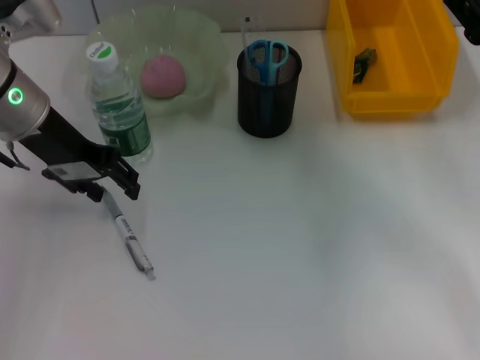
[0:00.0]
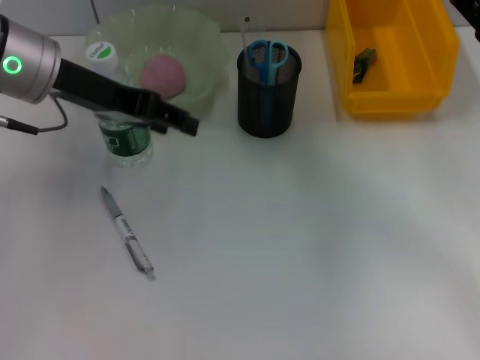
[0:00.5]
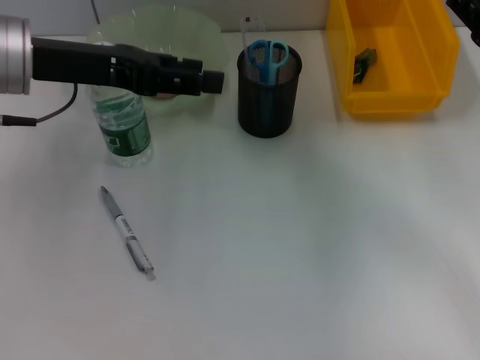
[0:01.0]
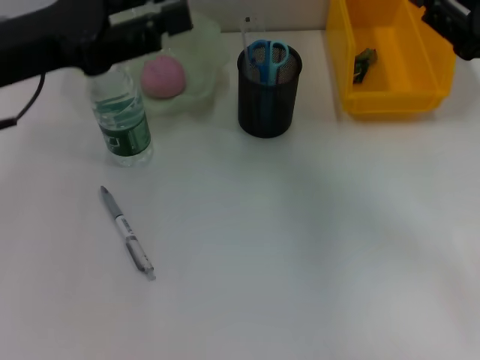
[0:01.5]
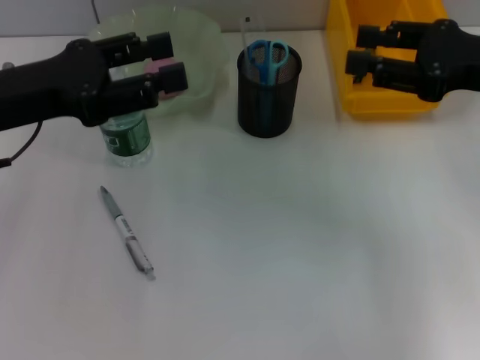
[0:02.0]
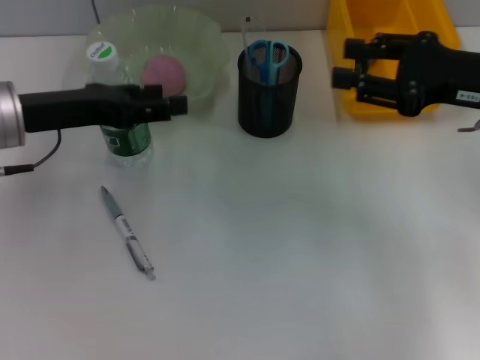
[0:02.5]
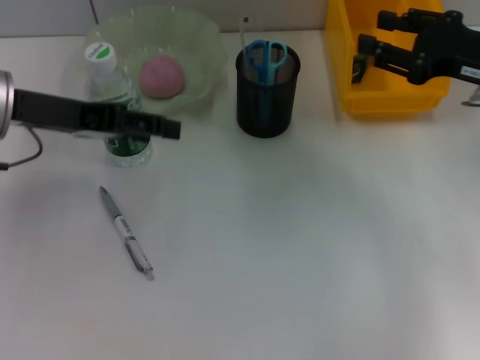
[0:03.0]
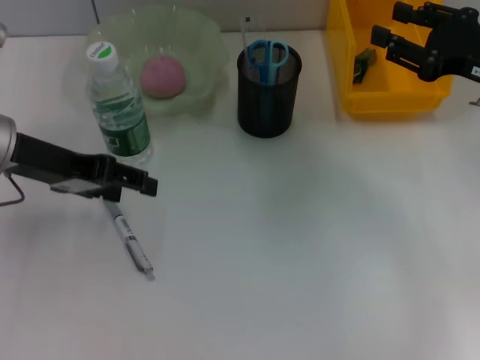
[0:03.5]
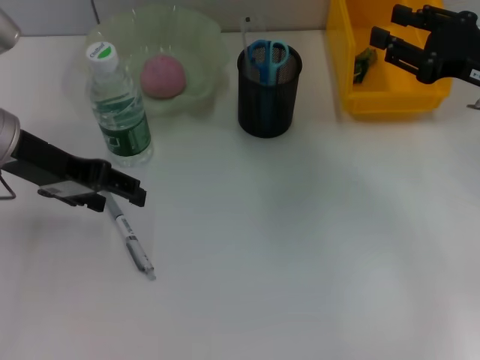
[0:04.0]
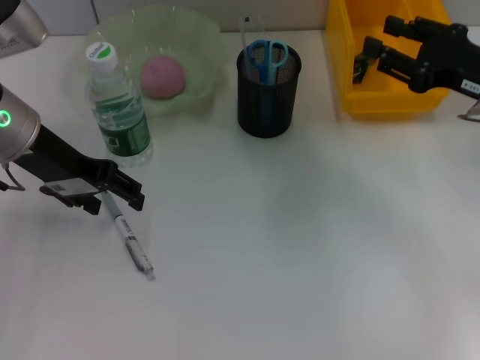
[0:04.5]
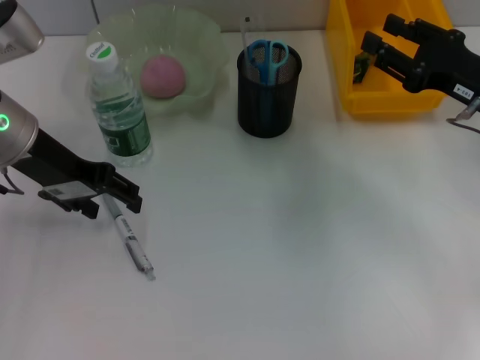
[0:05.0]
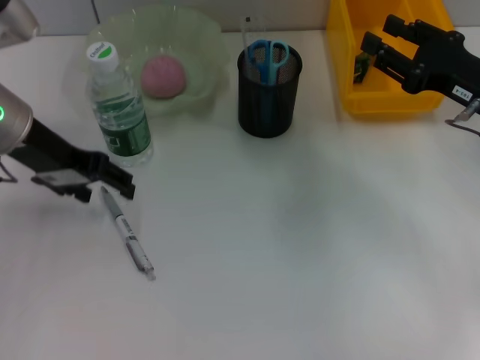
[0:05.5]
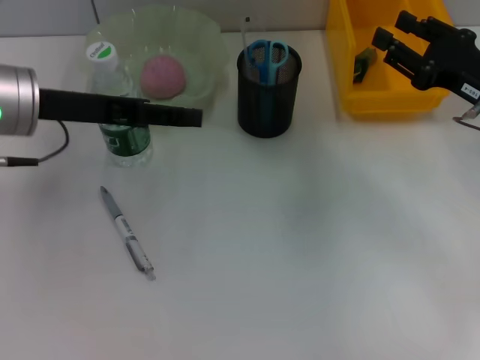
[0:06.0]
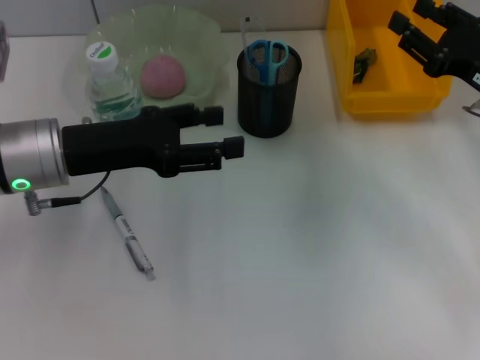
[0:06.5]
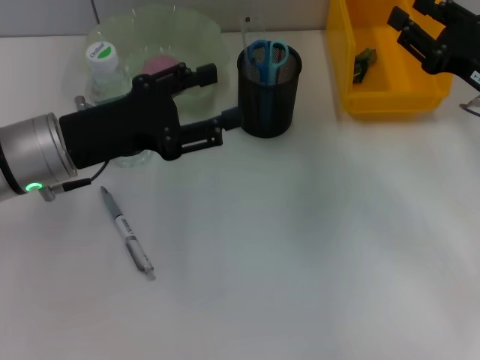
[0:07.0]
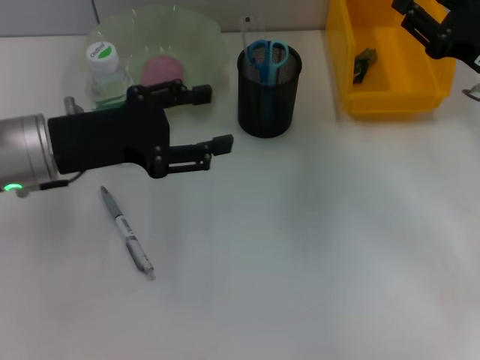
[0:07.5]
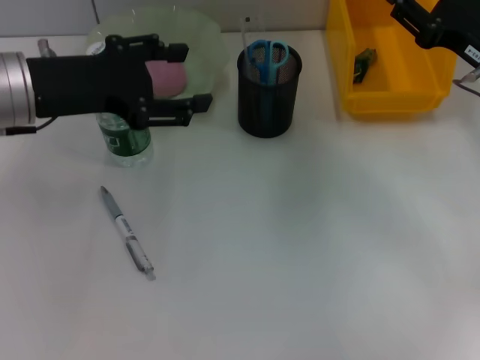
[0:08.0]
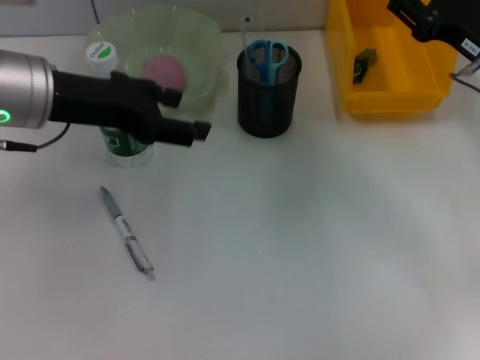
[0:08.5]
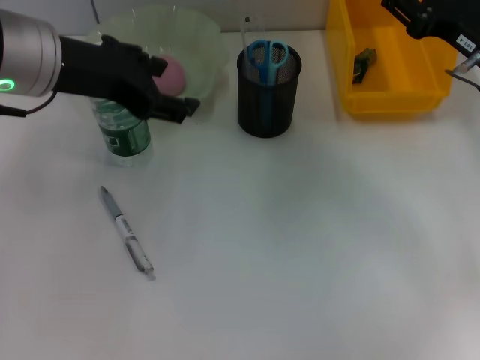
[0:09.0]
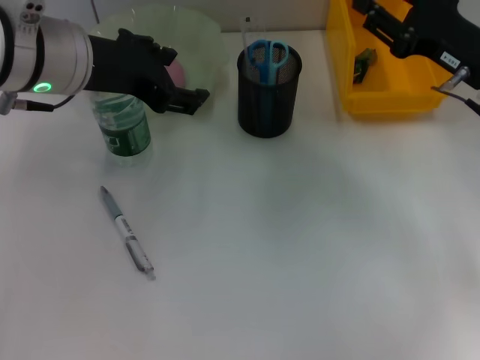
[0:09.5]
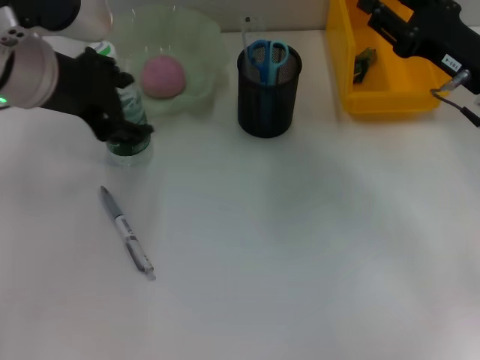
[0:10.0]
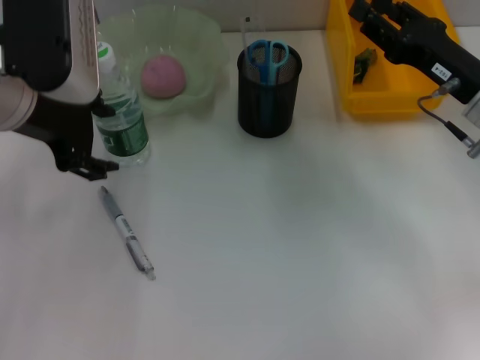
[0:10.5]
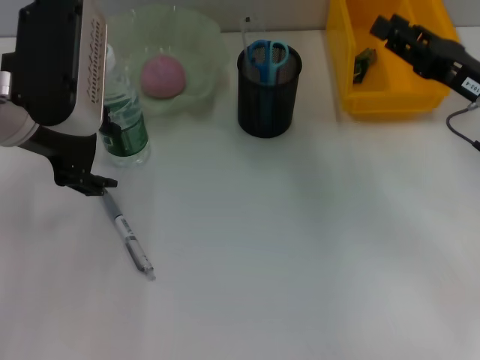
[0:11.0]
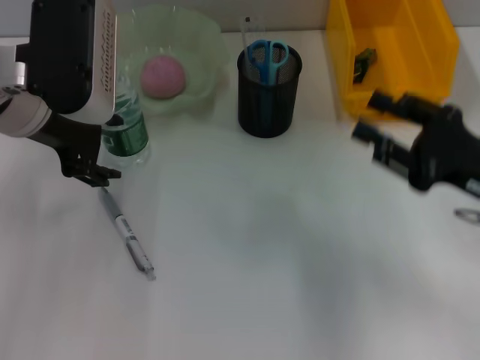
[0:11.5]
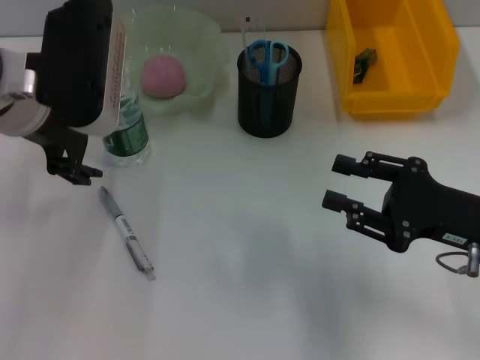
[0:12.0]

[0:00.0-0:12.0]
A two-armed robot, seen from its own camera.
0:00.0 to 0:02.0: The right gripper moves upward, roughly 10 cm; the left gripper heads backward, covering approximately 10 cm.
0:02.0 to 0:04.0: The right gripper shifts by about 5 cm.
0:08.0 to 0:10.0: The left gripper shifts by about 5 cm.
0:10.0 to 0:12.0: The right gripper moves backward, roughly 10 cm.

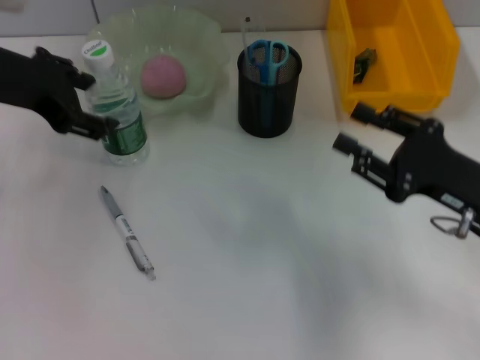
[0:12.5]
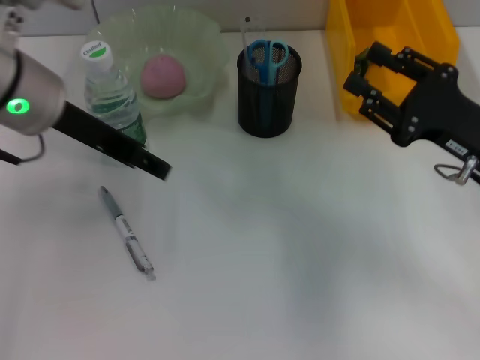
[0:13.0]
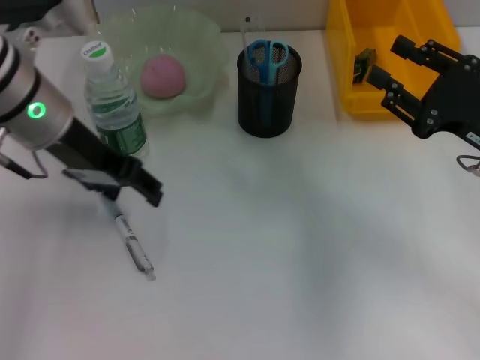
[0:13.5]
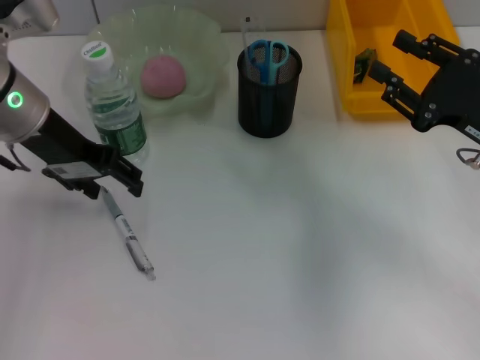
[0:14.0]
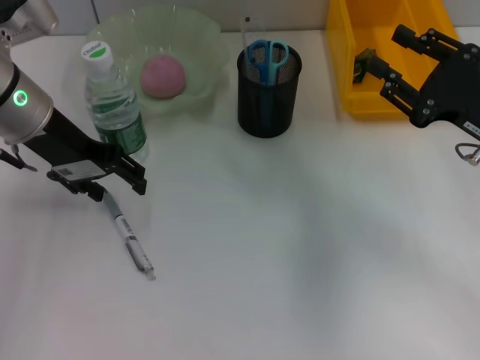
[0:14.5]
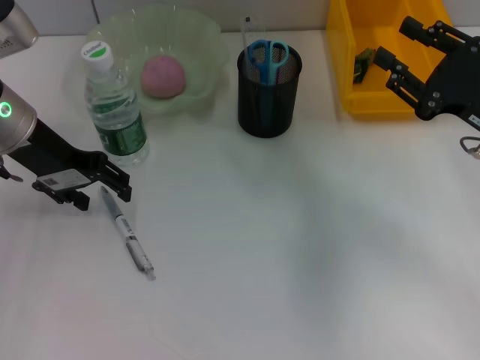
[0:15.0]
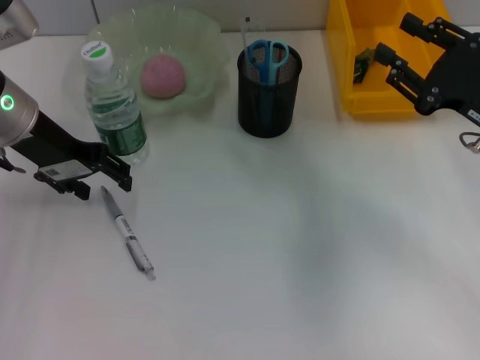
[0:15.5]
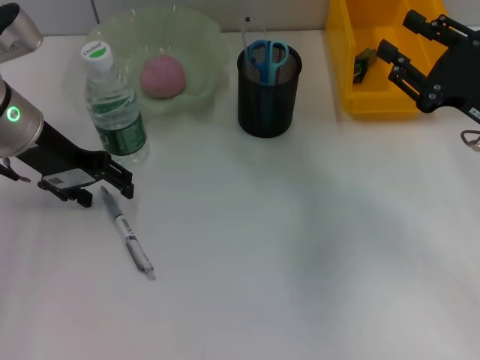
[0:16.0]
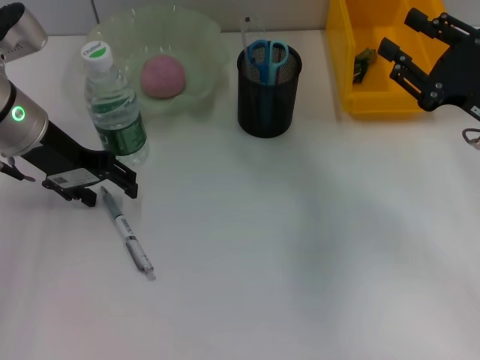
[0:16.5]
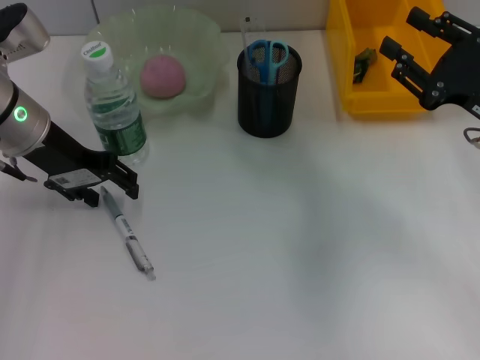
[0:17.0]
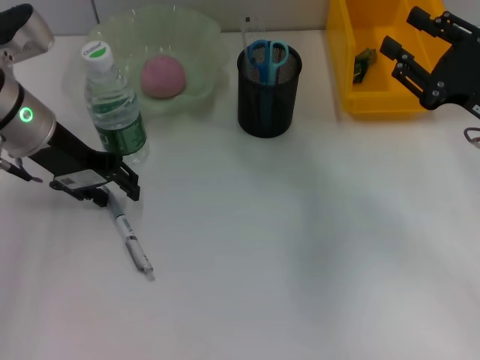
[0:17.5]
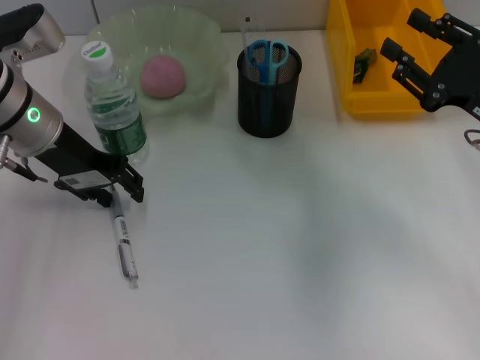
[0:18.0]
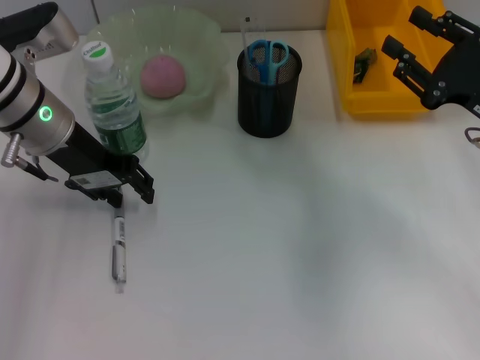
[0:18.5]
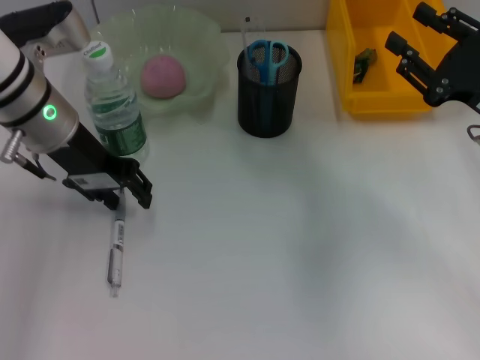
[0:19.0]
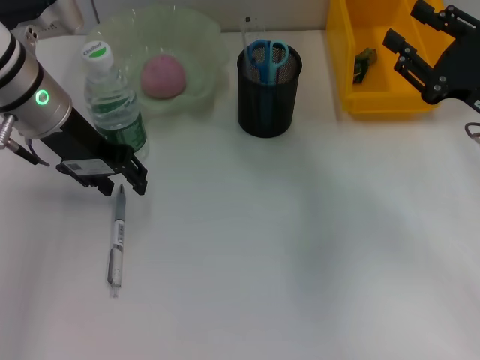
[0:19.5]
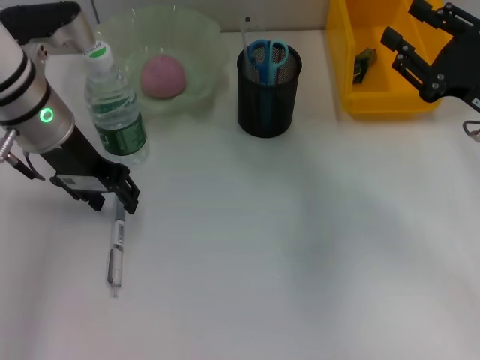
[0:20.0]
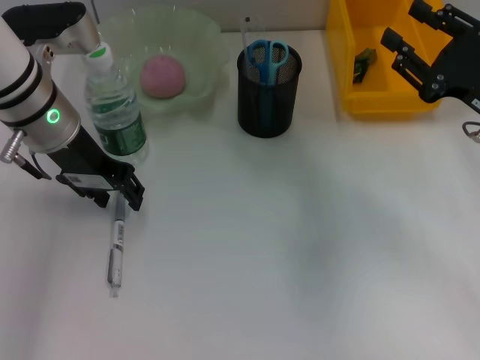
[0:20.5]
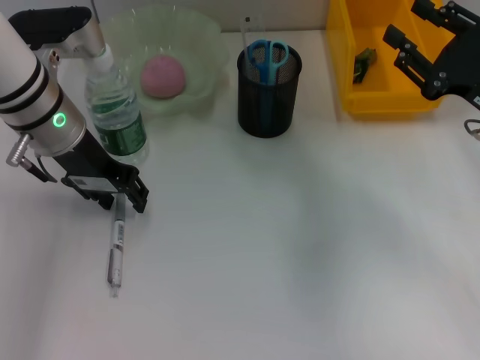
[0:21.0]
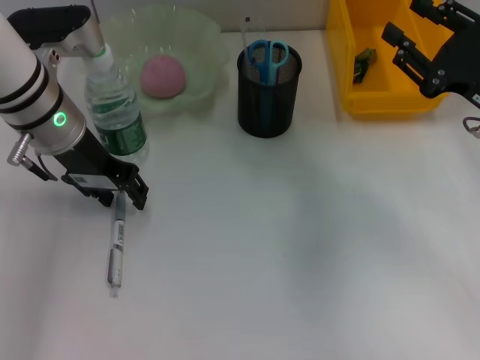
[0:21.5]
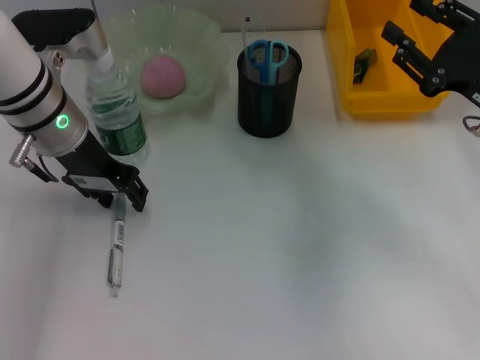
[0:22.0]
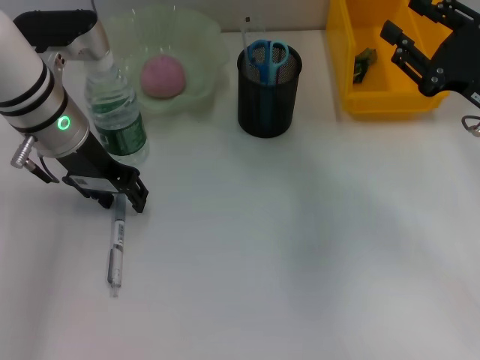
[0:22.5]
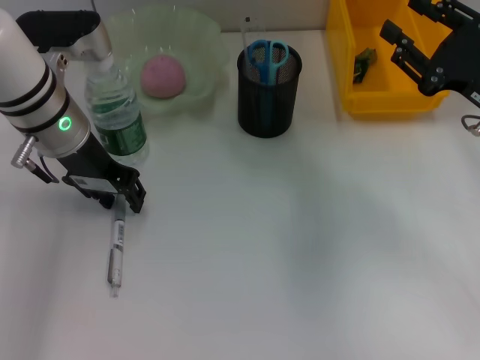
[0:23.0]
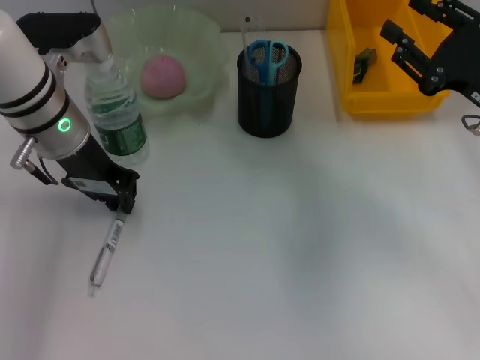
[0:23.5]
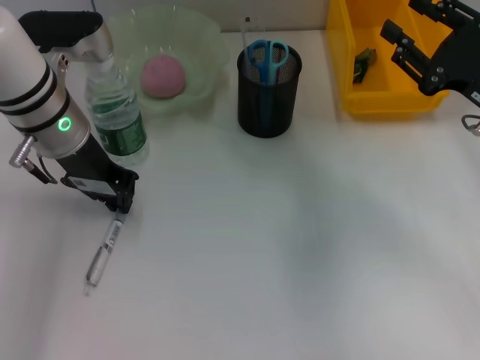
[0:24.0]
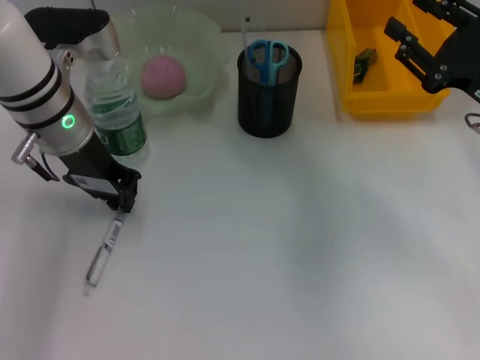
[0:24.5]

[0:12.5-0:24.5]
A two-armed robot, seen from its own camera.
0:12.5 to 0:14.5: The left gripper goes roughly 5 cm downward, while the right gripper ends up some 5 cm from where it was.
0:14.5 to 0:20.5: The grippers move only a little.
0:20.5 to 0:22.5: The two grippers keep their place.
0:22.5 to 0:24.5: The left gripper closes up.

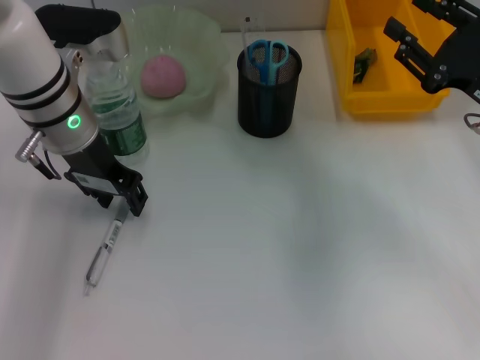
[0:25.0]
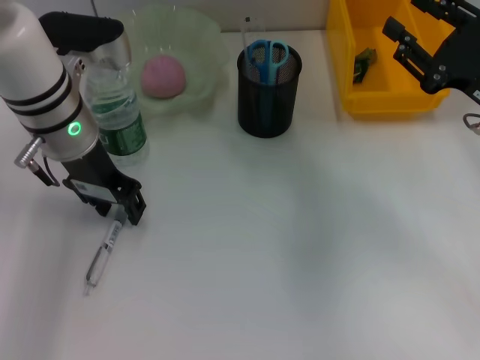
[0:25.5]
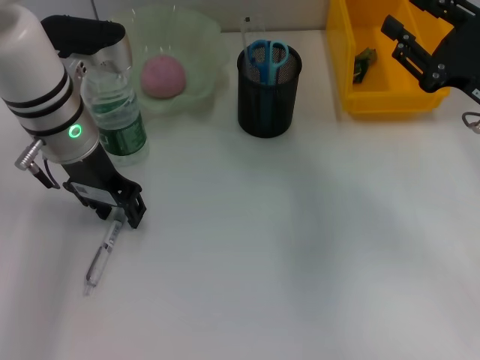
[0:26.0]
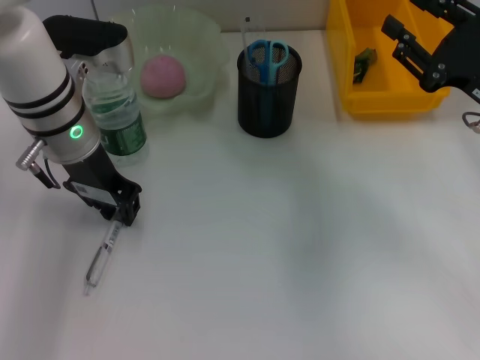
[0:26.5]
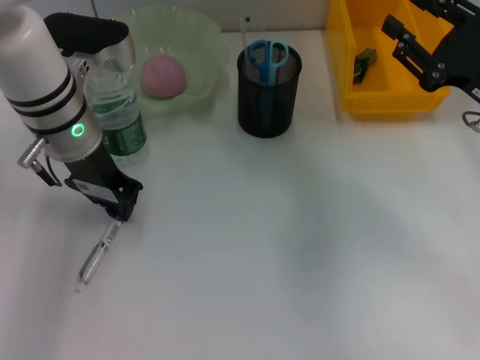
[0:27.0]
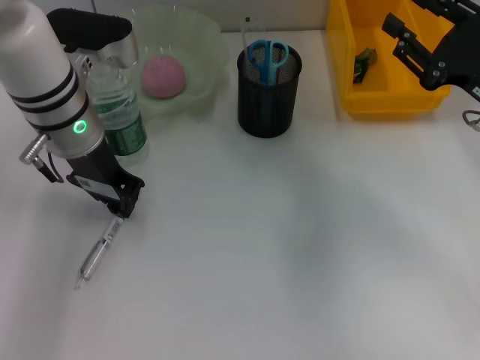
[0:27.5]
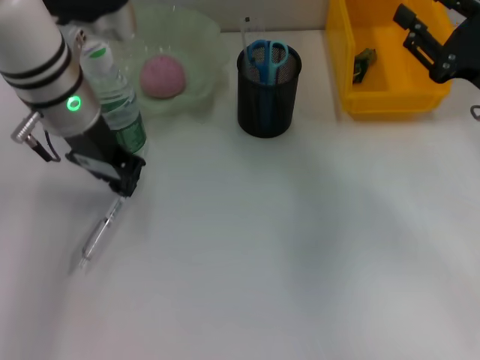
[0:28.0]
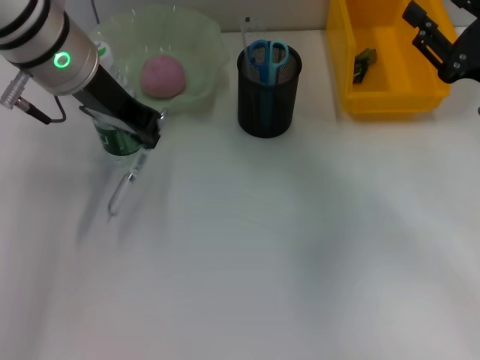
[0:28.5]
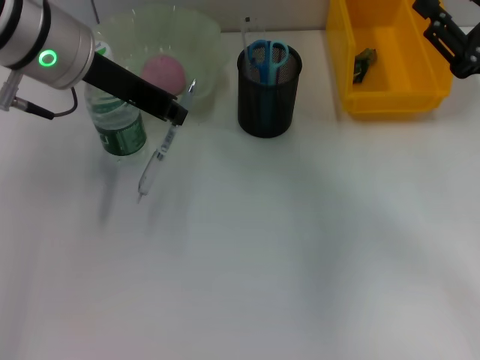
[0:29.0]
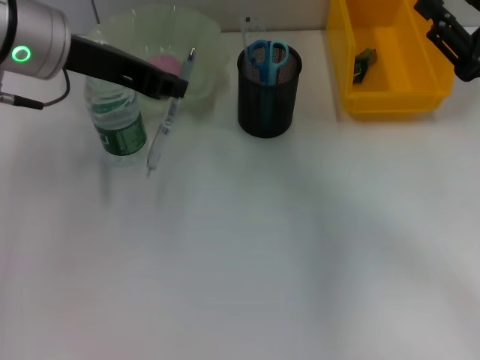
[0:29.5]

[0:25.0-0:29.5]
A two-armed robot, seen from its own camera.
Step, 0:25.0 to 0:27.0: Grab the gray spring-action pen with the left hand.
0:25.0 to 0:27.0: The two grippers keep their place.
0:27.0 to 0:29.5: The left gripper travels upward by roughly 10 cm.
